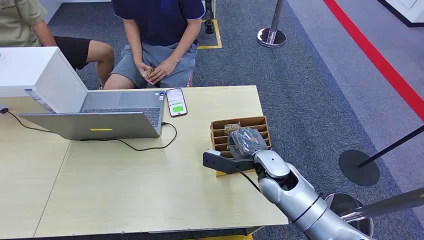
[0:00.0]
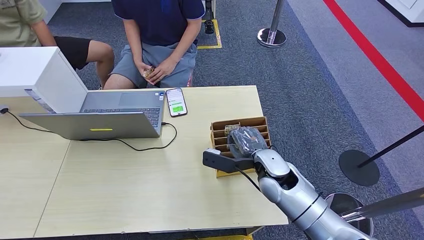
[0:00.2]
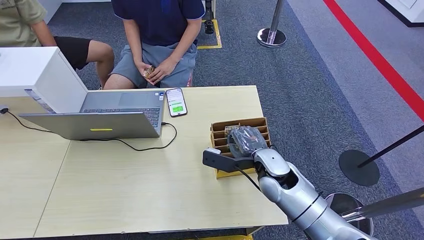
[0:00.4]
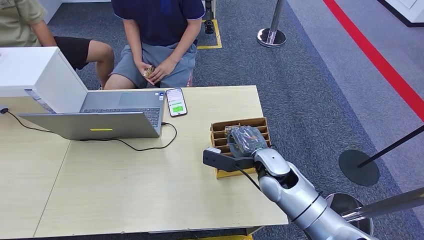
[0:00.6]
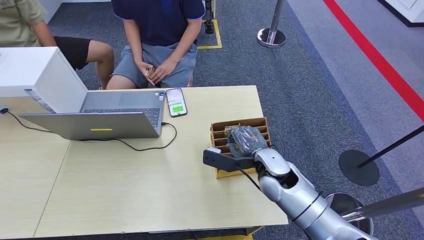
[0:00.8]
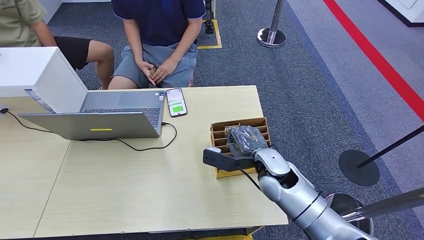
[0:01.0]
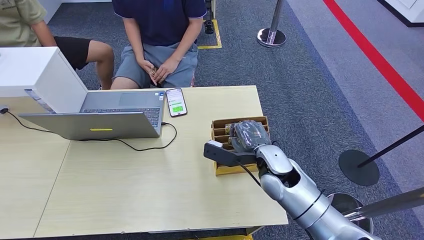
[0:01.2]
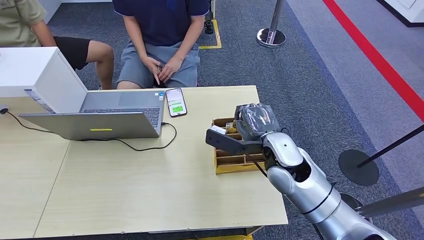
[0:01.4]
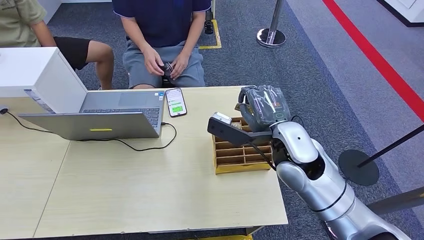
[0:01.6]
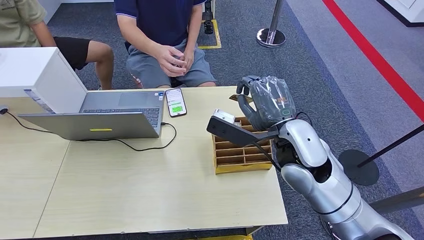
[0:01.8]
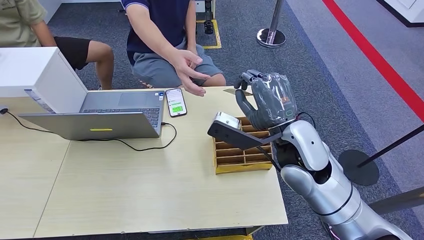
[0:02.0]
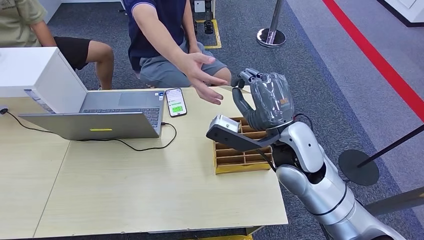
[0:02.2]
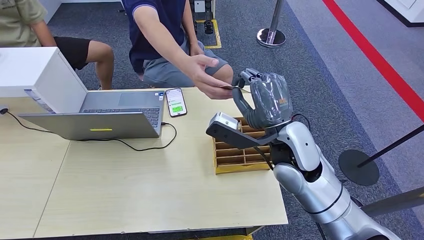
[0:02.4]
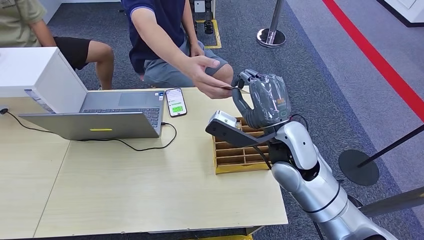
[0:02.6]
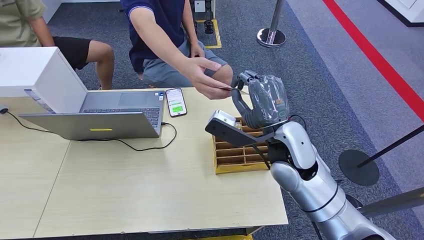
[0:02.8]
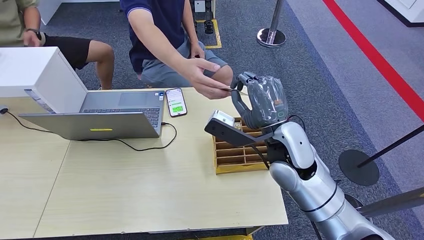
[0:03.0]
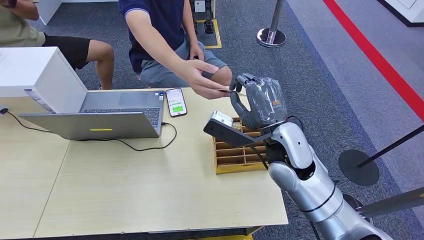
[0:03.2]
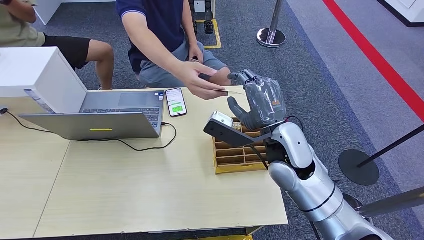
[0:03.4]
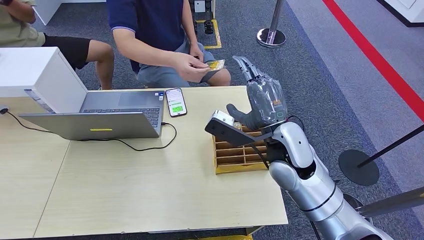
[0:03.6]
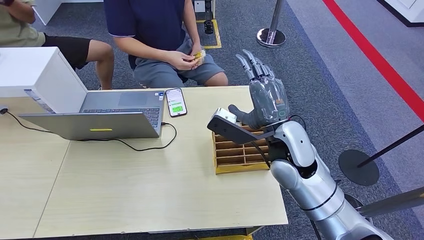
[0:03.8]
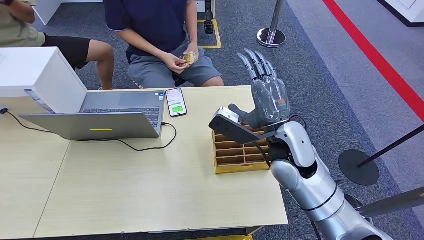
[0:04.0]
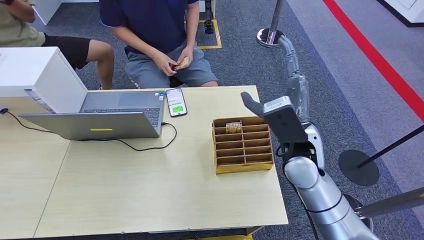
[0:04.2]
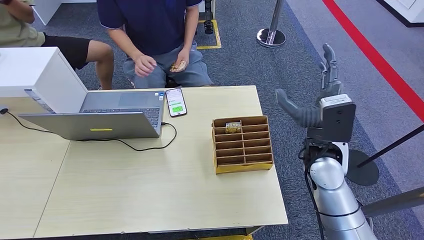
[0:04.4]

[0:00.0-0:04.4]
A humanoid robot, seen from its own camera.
Step, 0:00.0 to 0:01.8: Pick up the key card from the card box.
Step, 0:02.0 to 0:04.4: Hand the key card to the target.
0:01.4 to 0:03.0: The right hand heads upward, covering approximately 5 cm.
0:03.0 to 0:04.4: The right hand shifts approximately 10 cm to the right.
